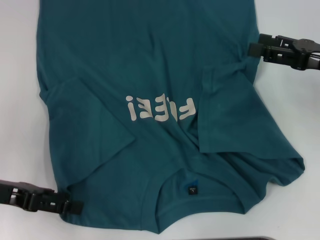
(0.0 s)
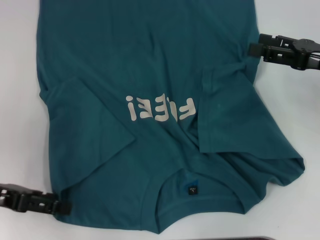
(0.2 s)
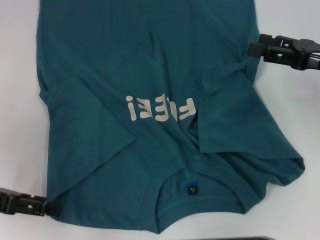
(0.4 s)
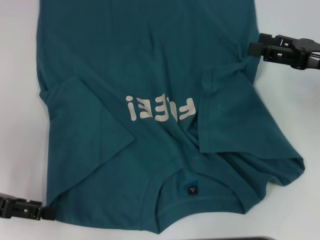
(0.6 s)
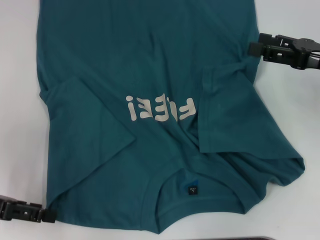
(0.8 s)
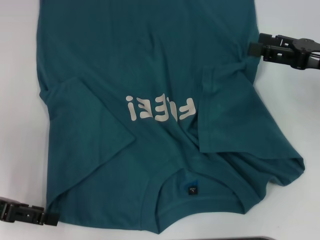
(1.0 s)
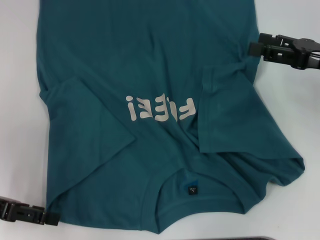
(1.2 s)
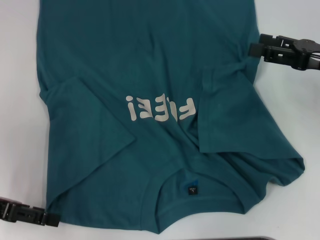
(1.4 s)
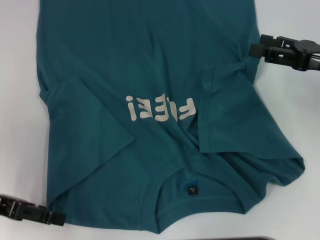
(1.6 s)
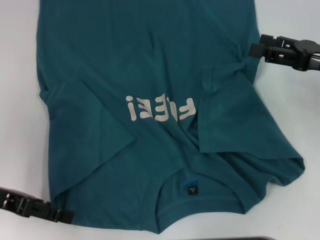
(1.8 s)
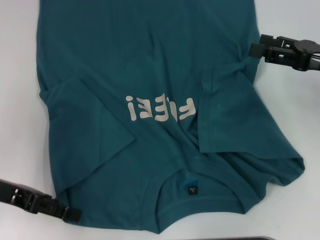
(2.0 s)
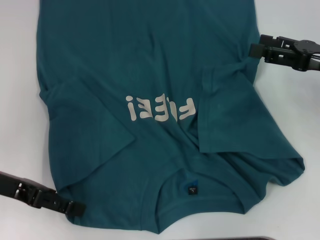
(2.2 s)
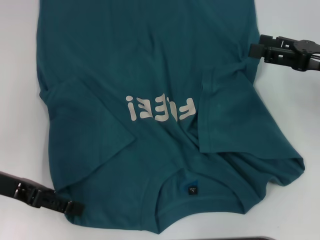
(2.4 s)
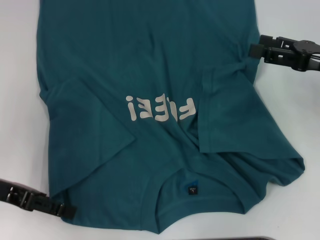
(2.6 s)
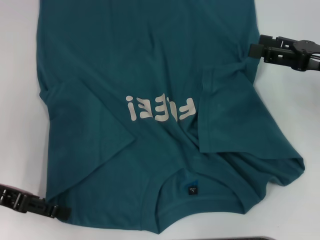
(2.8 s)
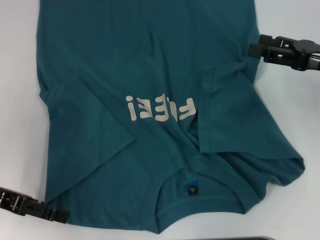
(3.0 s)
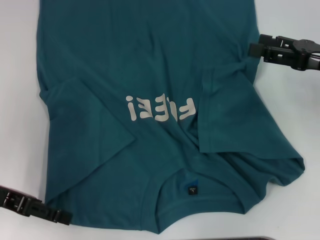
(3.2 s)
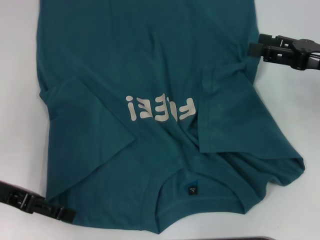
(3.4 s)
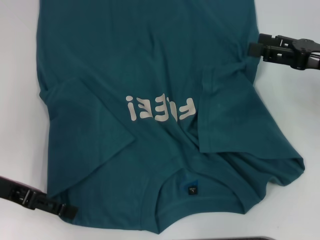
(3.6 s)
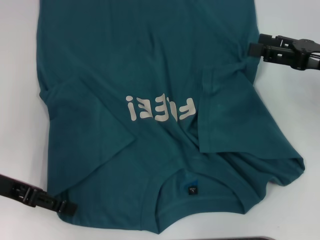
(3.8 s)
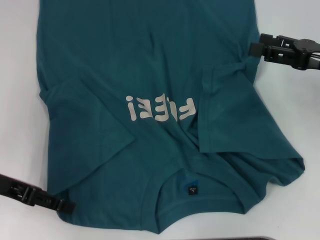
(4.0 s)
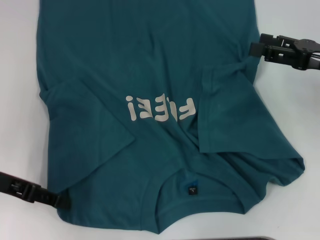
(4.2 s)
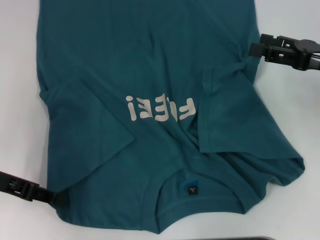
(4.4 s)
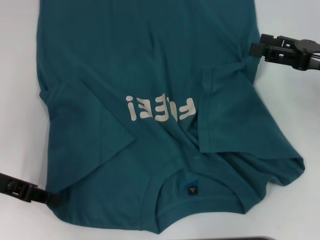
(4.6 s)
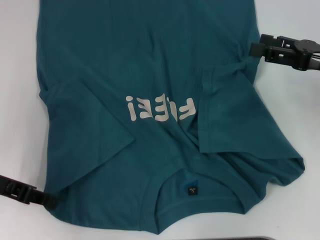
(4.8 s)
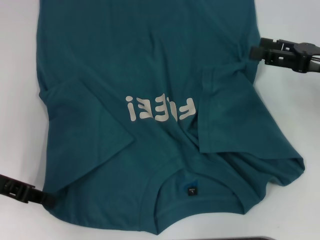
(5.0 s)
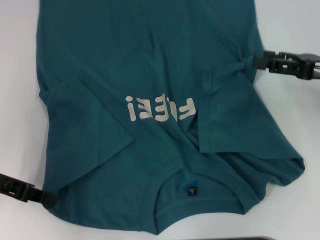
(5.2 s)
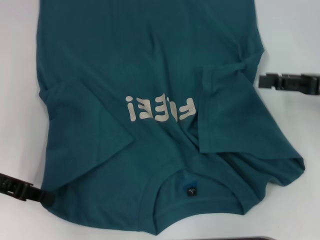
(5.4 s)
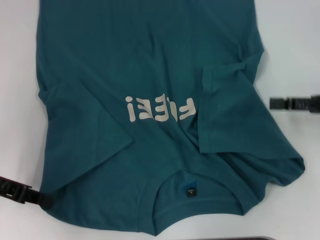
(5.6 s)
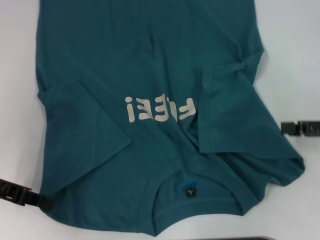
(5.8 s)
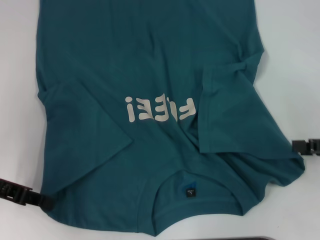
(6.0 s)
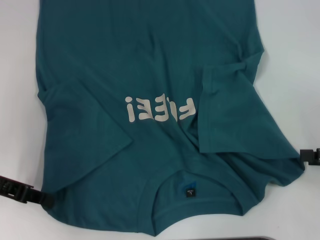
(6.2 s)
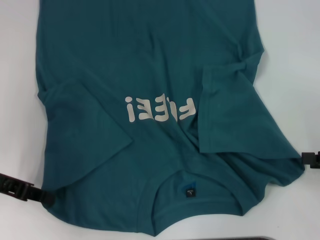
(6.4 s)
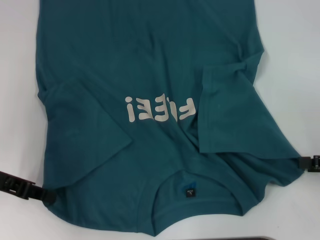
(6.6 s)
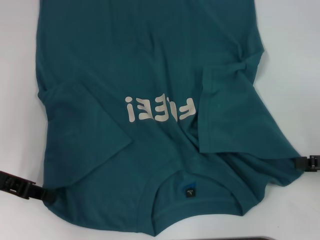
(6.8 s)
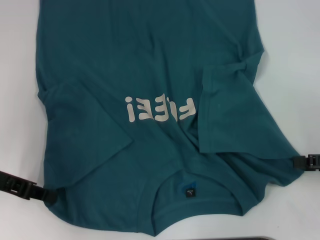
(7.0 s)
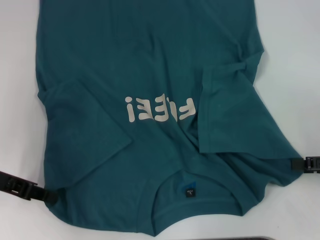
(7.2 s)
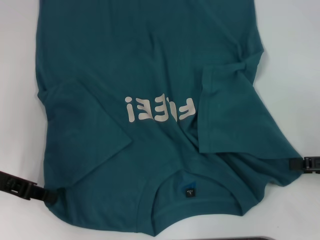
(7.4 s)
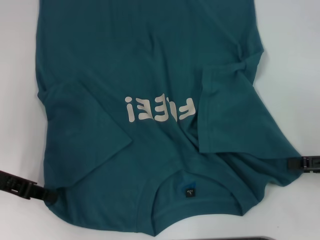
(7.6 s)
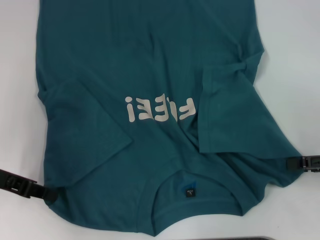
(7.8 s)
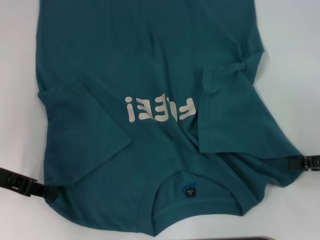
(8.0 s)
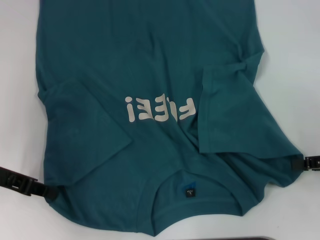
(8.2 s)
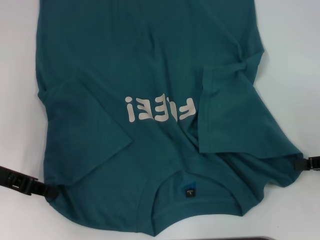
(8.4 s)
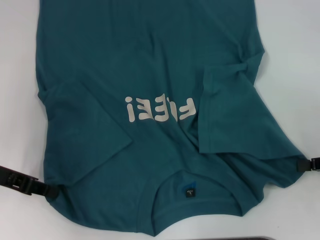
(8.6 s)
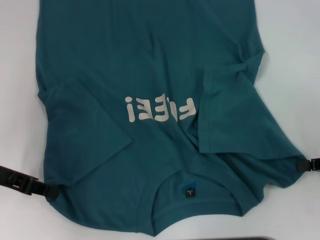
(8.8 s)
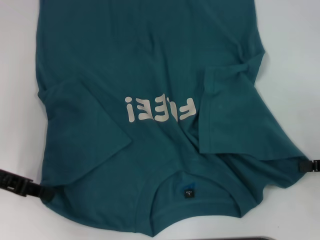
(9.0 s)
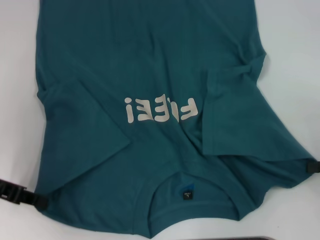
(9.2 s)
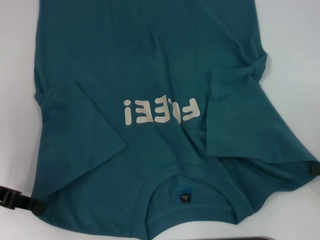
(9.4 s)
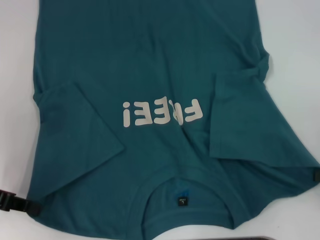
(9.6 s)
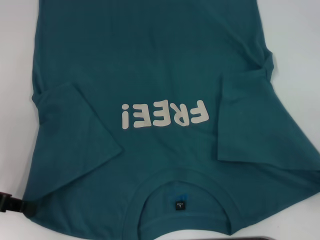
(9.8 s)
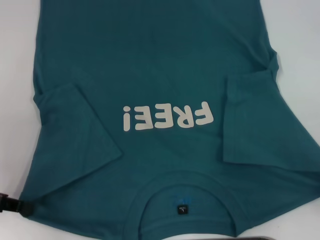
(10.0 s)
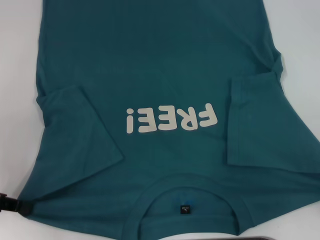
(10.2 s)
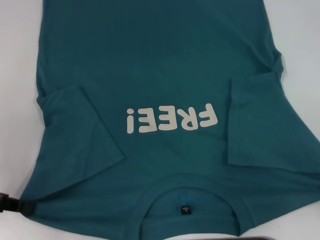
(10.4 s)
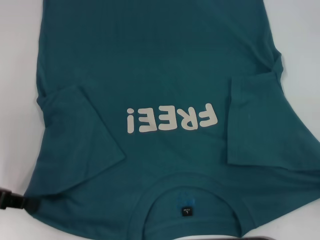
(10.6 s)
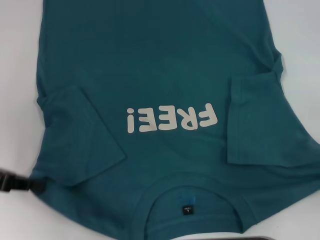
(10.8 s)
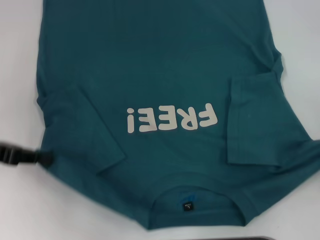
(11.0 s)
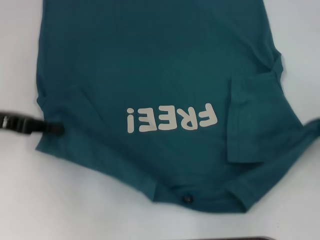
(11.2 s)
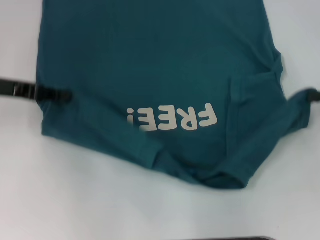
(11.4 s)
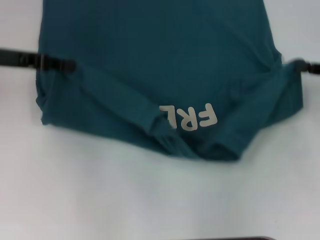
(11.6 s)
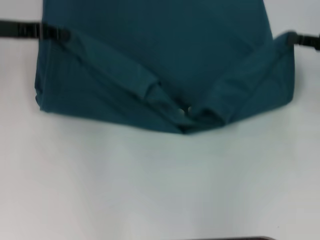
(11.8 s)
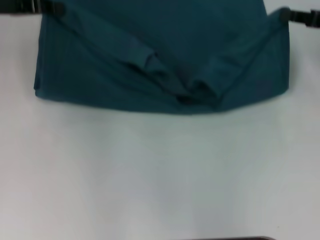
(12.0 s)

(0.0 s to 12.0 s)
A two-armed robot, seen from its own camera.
Step, 0.0 s - 6.0 s: Grab the bottom left corner with your left hand.
Step, 6.2 s - 9.4 s: Grab the bottom right corner with your right hand.
0.0 s - 3.0 s: The grippers stay close to where they were, moving slightly.
3.0 s - 4.4 s: The left gripper closes its fingers.
4.4 s - 6.0 s: The right gripper goes roughly 10 cm backward and to the right. The left gripper closes its fingers.
6.0 s - 7.6 s: There are only small adjustments of the grippers.
7.6 s - 9.0 s: The right gripper closes up.
9.0 s - 10.4 s: The right gripper travels backward by roughly 5 cm.
10.4 s - 12.0 s: The left gripper moves forward and upward, about 20 cm. Meanwhile the right gripper moves forward, roughly 20 cm.

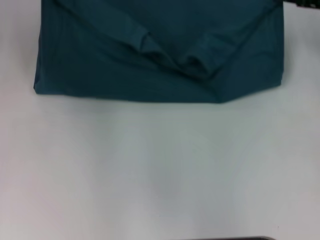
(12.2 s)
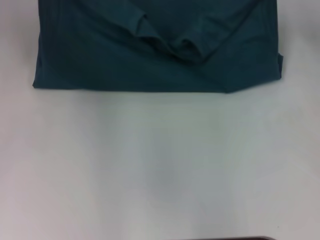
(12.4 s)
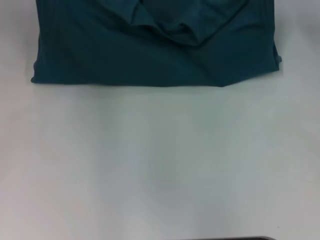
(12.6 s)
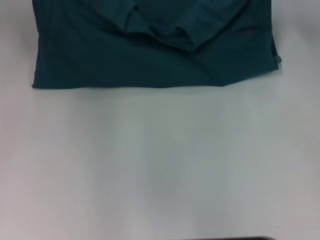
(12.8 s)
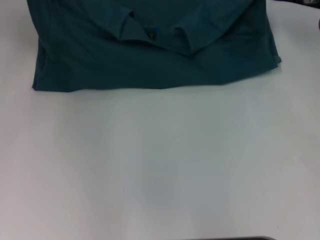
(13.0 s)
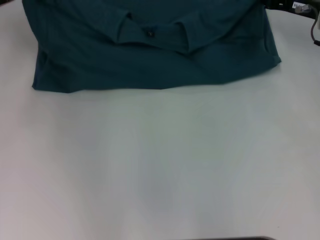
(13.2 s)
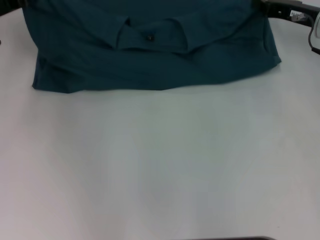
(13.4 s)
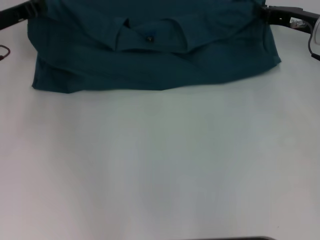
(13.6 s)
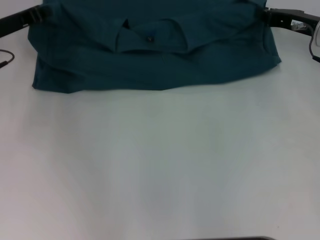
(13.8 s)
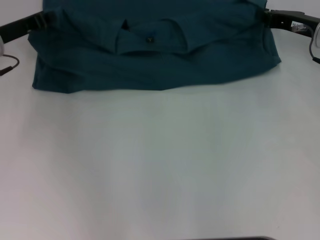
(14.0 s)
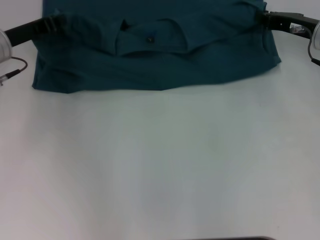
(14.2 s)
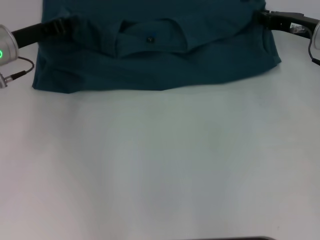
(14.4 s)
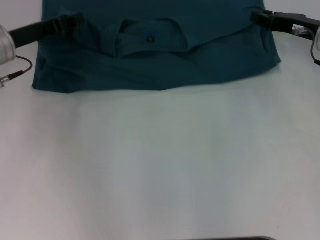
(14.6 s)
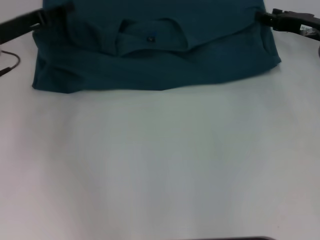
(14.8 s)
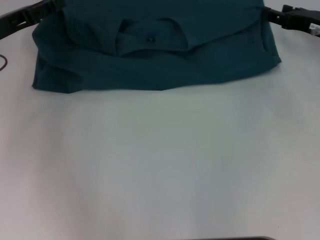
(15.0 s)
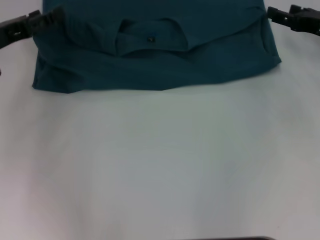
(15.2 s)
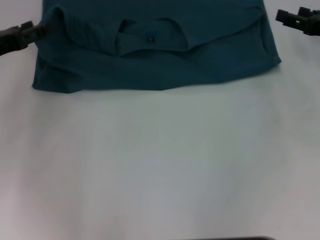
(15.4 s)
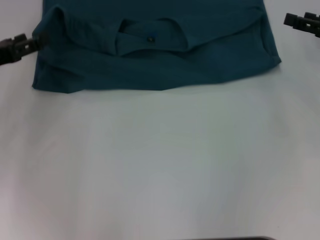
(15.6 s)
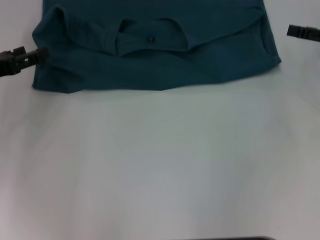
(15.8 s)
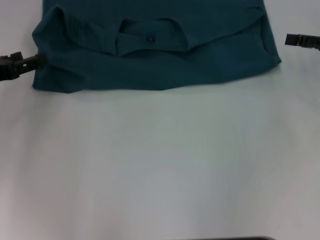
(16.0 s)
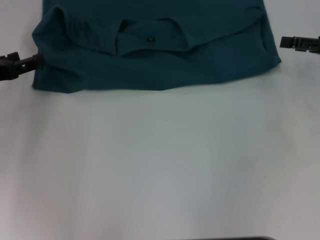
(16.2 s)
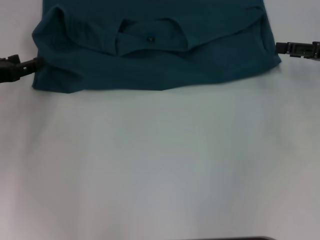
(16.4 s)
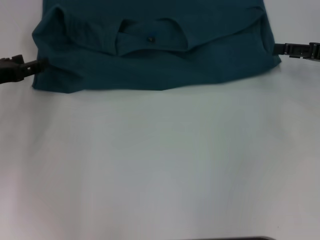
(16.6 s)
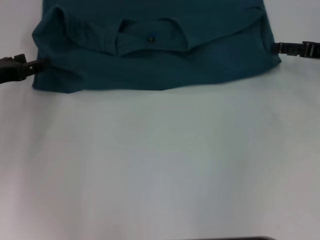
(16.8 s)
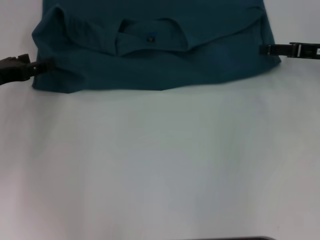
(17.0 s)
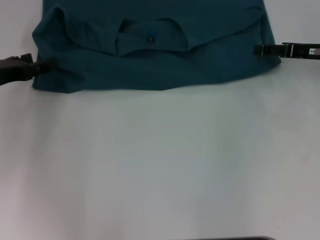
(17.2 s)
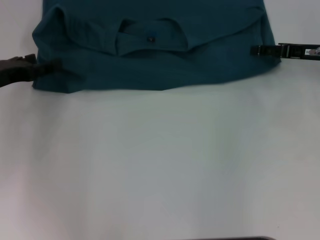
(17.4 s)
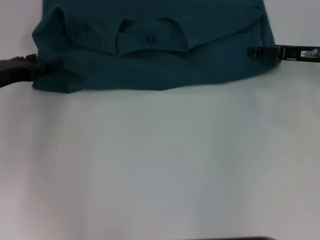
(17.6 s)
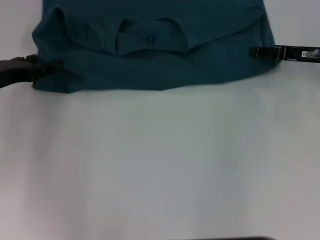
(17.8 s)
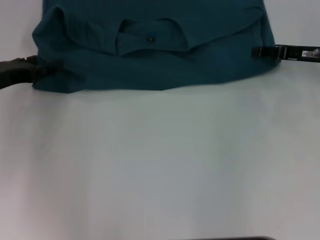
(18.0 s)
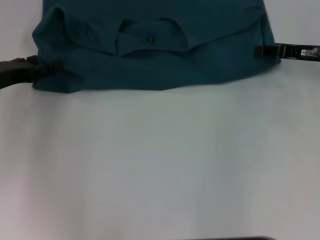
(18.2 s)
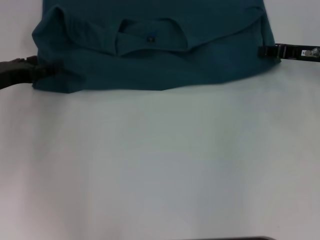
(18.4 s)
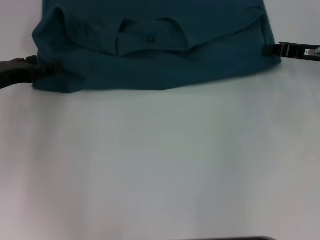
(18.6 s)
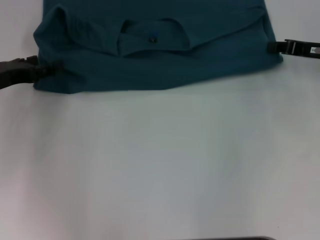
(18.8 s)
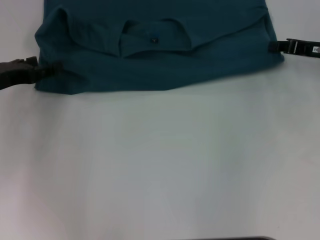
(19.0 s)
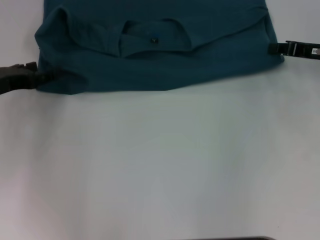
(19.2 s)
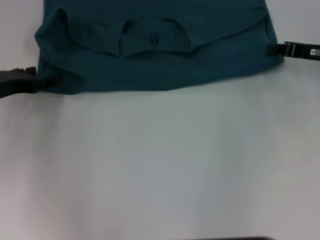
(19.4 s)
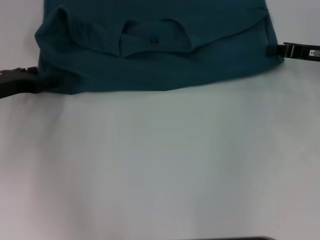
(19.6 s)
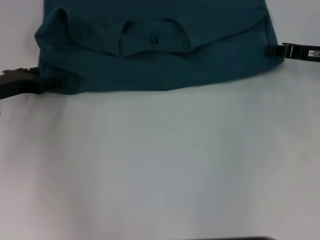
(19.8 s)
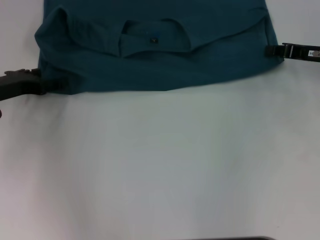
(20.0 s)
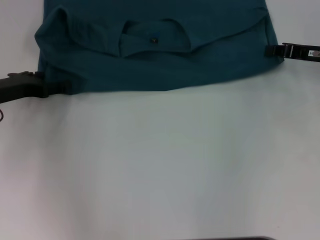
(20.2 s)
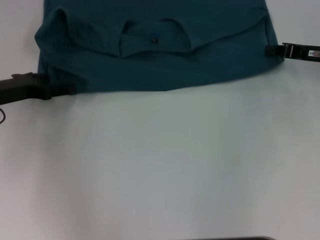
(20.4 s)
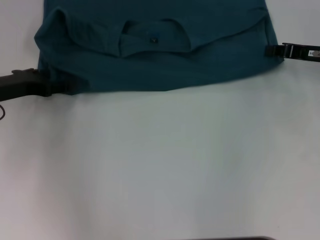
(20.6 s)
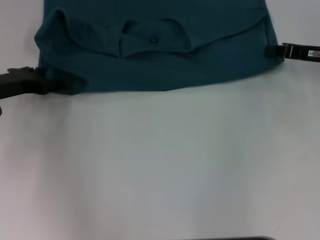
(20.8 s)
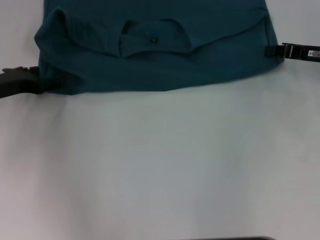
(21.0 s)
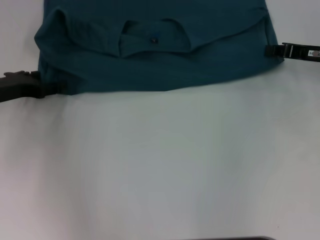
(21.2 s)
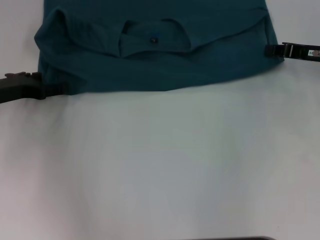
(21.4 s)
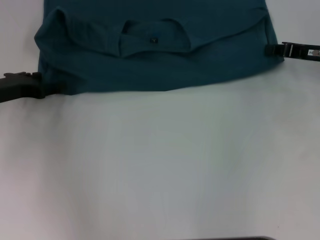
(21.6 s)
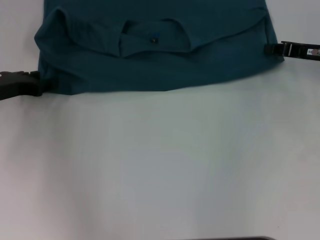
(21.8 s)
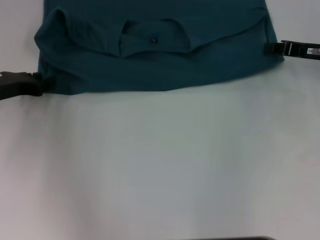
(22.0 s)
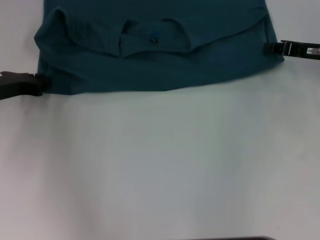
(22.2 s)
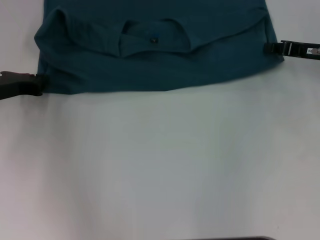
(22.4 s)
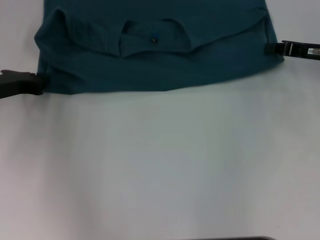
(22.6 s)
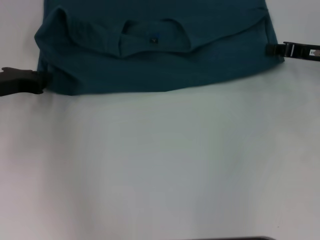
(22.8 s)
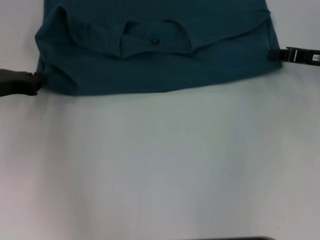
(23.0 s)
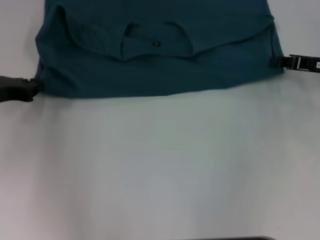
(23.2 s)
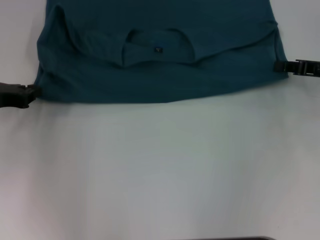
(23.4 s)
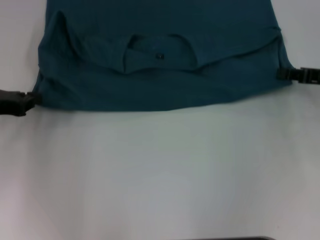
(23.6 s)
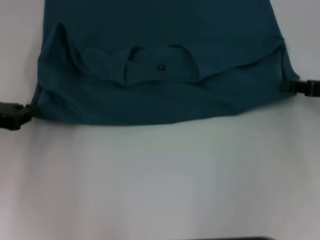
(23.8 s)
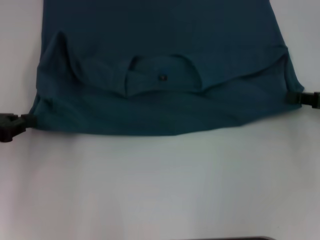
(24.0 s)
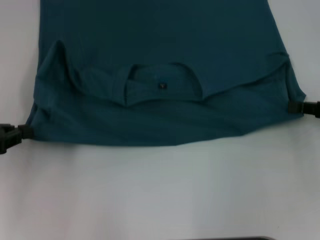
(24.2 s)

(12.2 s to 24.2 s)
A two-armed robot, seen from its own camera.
Step, 12.2 s - 15.4 s: Fold the clothes to the left.
Step, 12.2 s - 15.4 s: Fold the clothes to the right.
12.2 s - 13.8 s: The two grippers go about 5 cm downward.
13.8 s - 15.2 s: The right gripper opens up; the left gripper is displaced backward by approximately 5 cm, and opens.
16.6 s - 18.2 s: The right gripper moves approximately 5 cm.
18.2 s - 19.8 s: The right gripper closes up.
22.6 s - 24.2 s: The left gripper shifts some 10 cm backward and to the left; the right gripper shifts about 10 cm backward.
